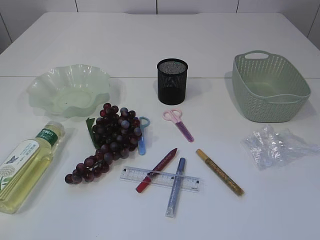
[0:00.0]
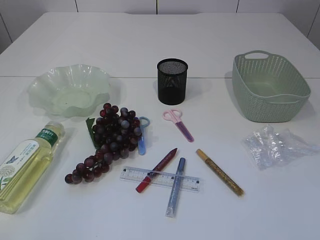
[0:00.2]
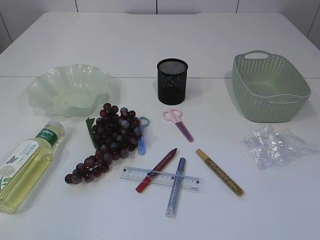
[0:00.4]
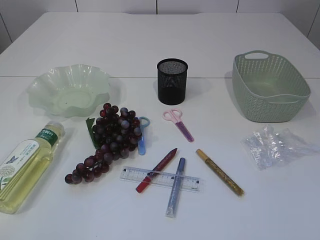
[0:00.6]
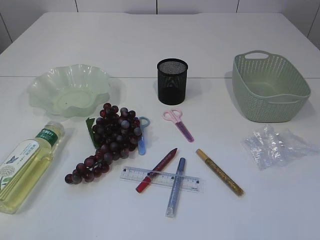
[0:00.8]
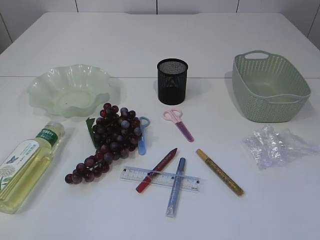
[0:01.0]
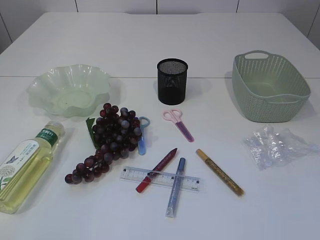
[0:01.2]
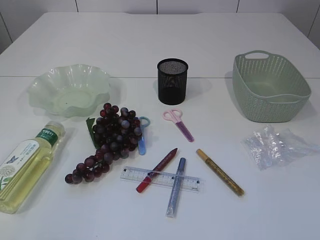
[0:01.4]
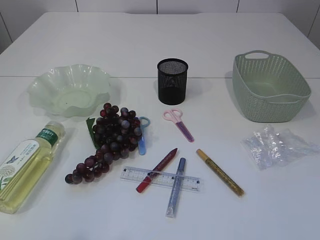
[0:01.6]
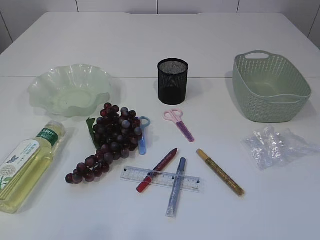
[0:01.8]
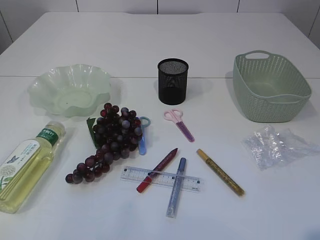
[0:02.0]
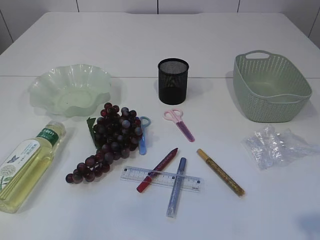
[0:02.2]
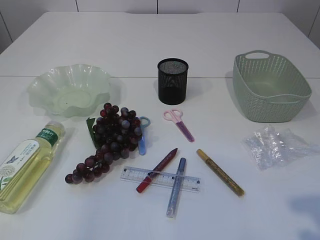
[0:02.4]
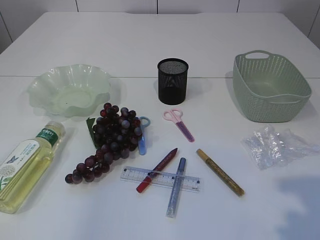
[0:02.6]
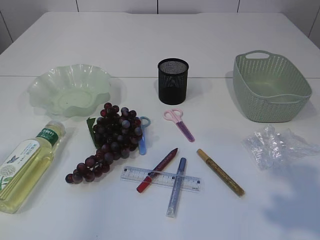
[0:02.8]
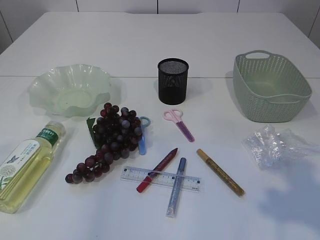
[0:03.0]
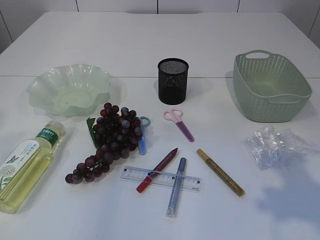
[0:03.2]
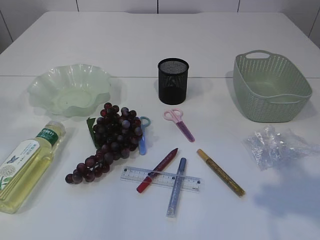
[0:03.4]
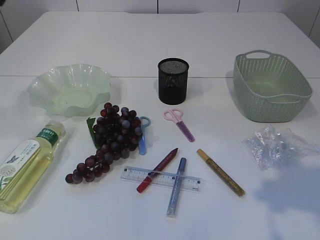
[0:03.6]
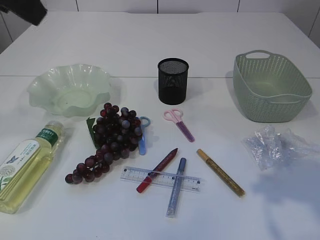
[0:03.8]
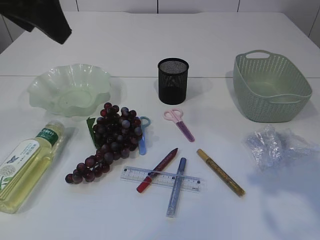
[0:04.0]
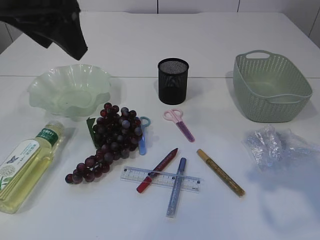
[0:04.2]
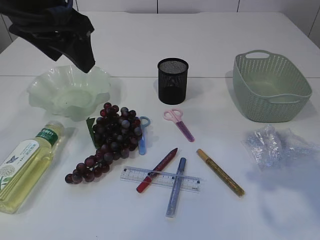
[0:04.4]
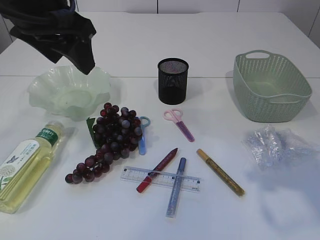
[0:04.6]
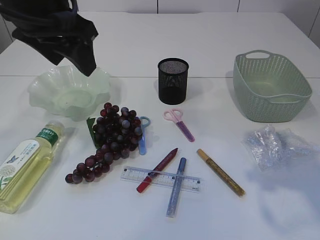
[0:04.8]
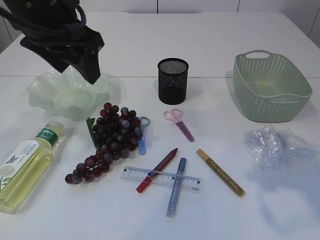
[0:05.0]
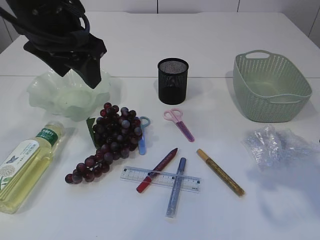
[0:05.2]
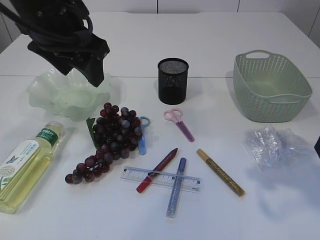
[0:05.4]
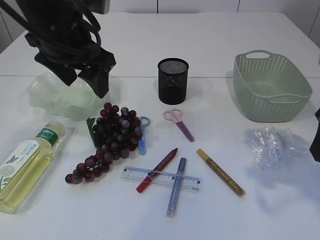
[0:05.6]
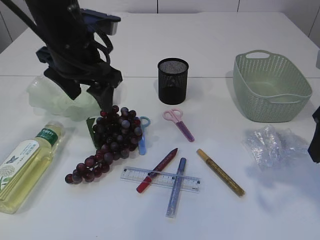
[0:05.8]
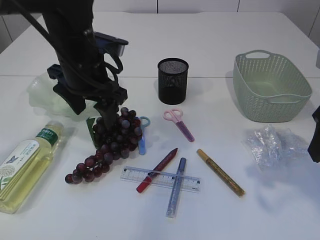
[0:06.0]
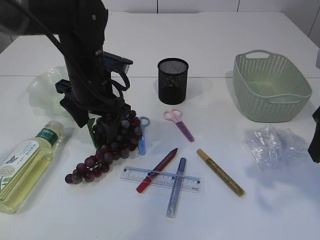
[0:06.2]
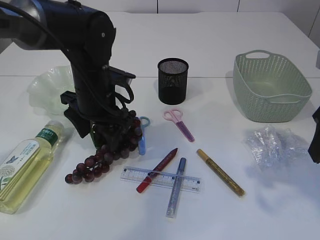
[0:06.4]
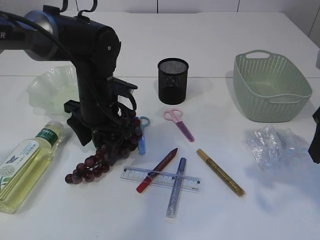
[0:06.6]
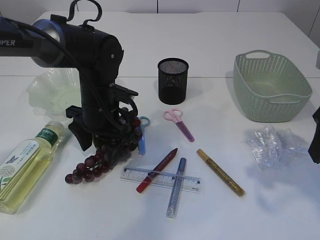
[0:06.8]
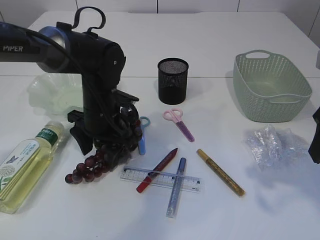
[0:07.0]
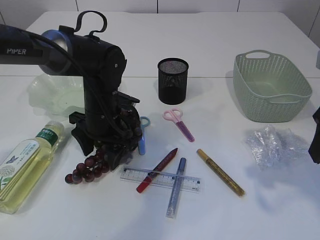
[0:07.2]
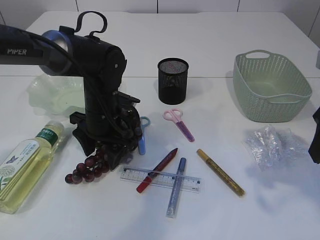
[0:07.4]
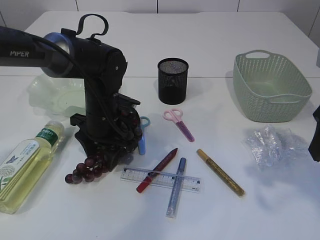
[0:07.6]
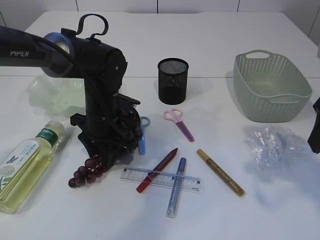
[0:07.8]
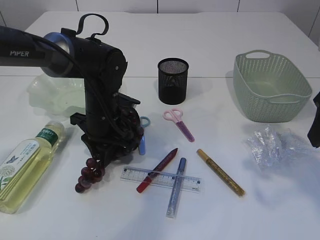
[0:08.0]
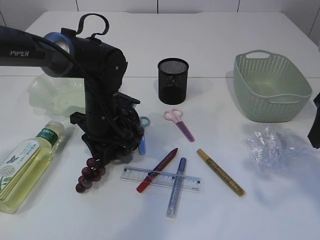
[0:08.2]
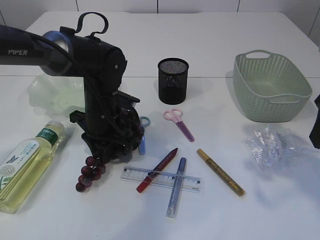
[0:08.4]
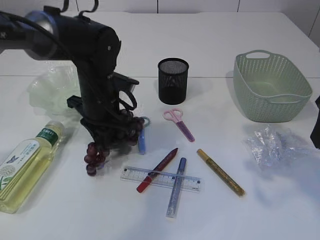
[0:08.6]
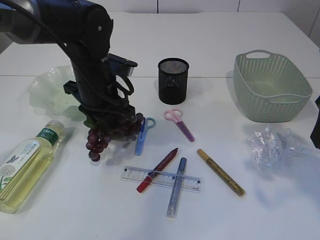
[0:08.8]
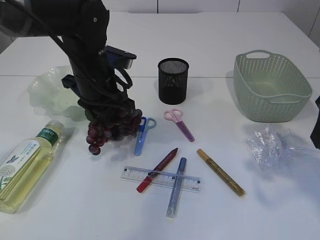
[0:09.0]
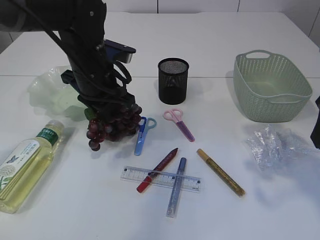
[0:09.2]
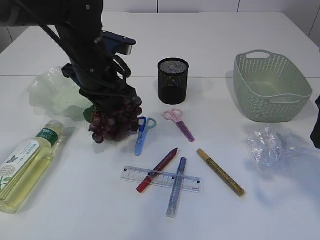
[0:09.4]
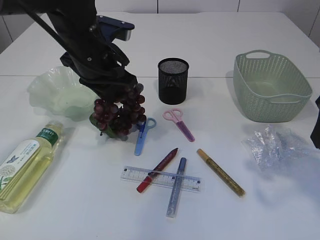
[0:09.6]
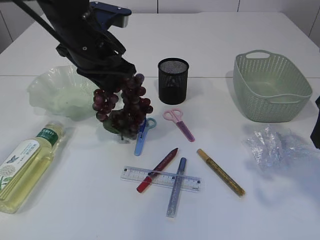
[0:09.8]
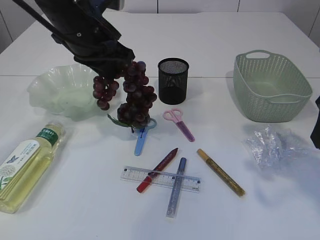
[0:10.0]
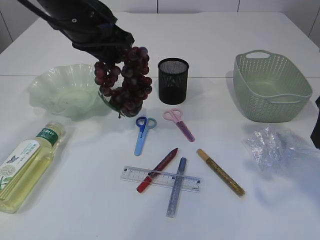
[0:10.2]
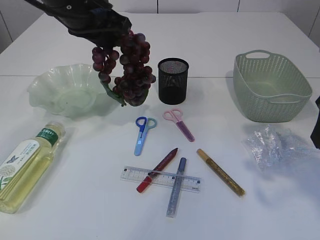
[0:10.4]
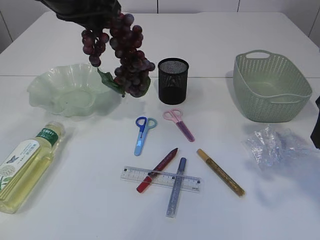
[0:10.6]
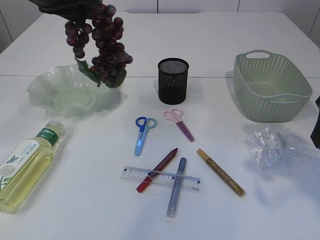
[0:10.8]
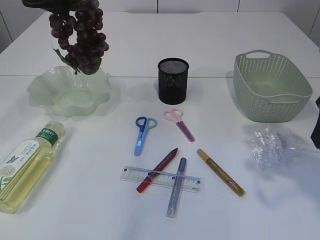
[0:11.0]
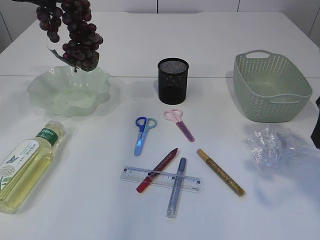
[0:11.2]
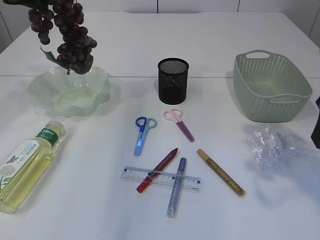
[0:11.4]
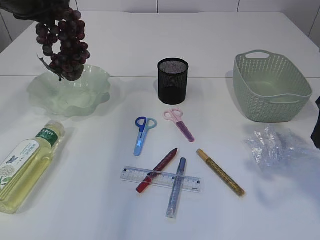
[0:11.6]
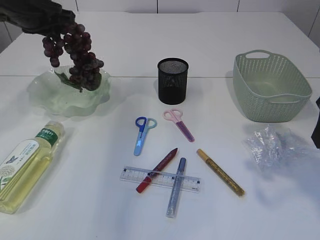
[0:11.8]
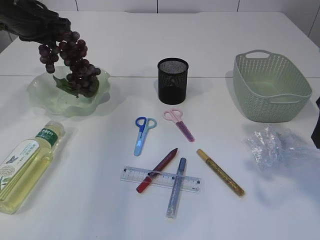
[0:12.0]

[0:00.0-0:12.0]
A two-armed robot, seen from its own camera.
Step, 0:00.0 to 0:10.0: Pick up the grapes.
0:01.6 to 0:03.0: The right gripper travels forward and upward by roughly 15 cm.
0:03.0 to 0:04.4: The right gripper travels forward by about 10 cm. The left gripper heads forward, to the right and downward, covering approximately 20 cm.
0:04.4 to 0:06.0: The left gripper is displaced downward and forward by some 15 cm.
0:06.0 to 0:07.6: The left gripper is displaced downward by some 10 cm.
0:07.6 to 0:09.0: The left gripper travels upward by approximately 10 cm, and closes up.
0:09.0 to 0:10.4: The left gripper travels upward by some 10 cm.
0:10.4 to 0:12.0: The left gripper is displaced to the left and forward by approximately 15 cm.

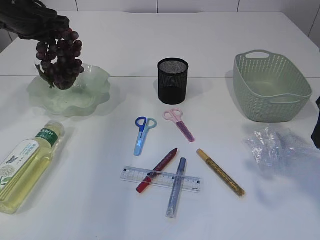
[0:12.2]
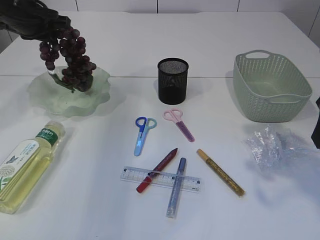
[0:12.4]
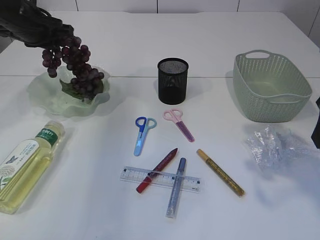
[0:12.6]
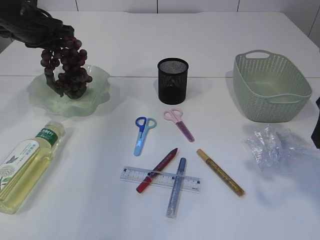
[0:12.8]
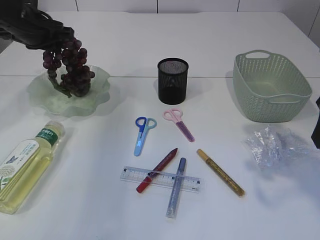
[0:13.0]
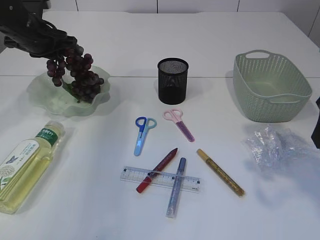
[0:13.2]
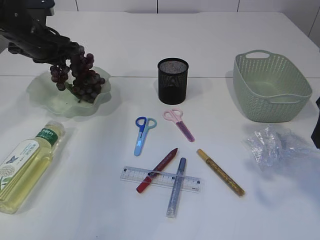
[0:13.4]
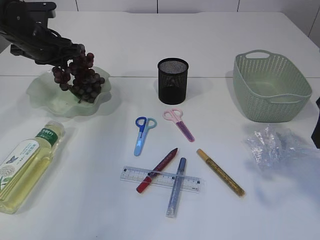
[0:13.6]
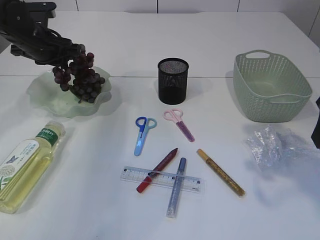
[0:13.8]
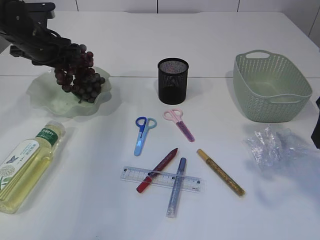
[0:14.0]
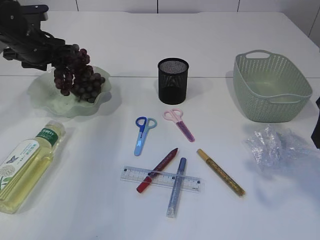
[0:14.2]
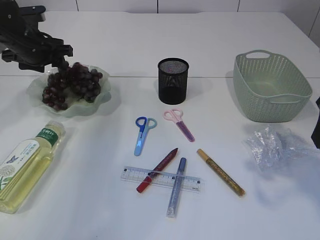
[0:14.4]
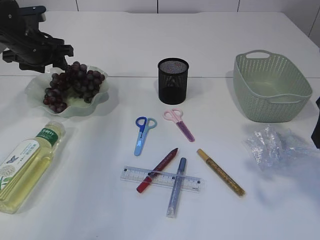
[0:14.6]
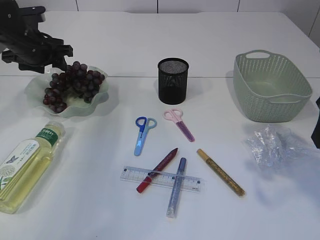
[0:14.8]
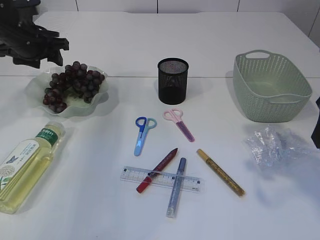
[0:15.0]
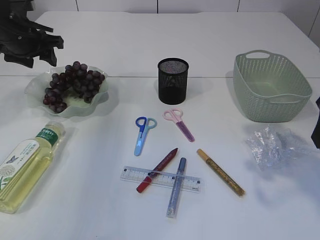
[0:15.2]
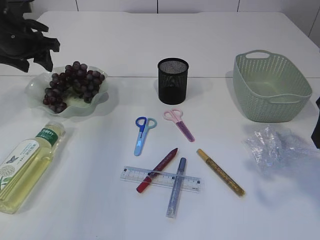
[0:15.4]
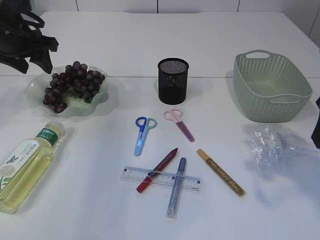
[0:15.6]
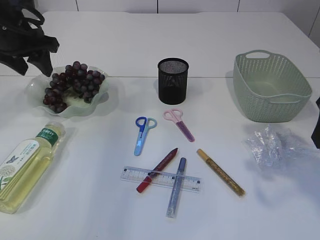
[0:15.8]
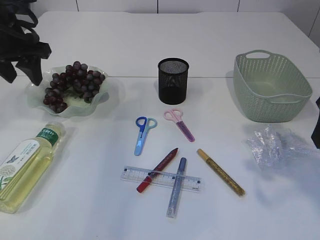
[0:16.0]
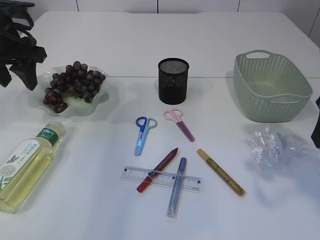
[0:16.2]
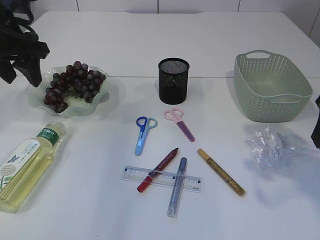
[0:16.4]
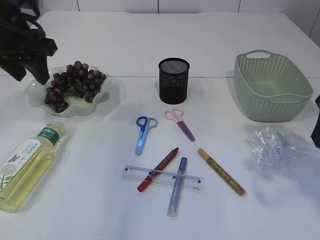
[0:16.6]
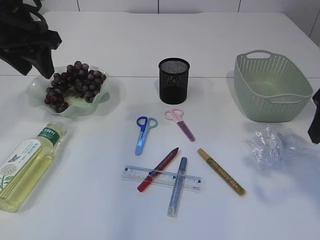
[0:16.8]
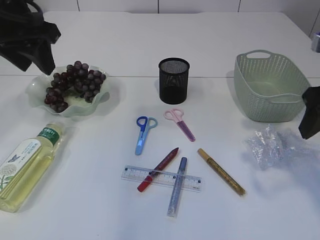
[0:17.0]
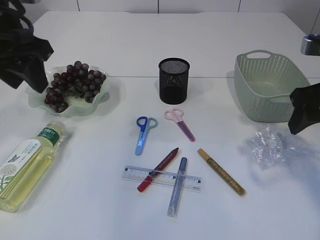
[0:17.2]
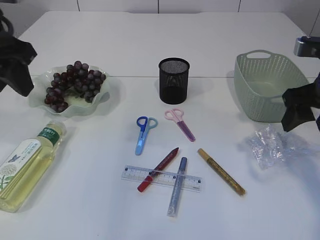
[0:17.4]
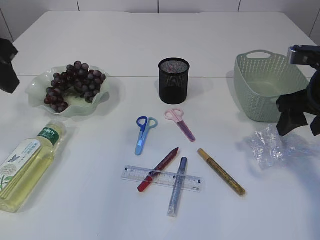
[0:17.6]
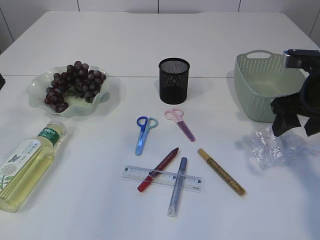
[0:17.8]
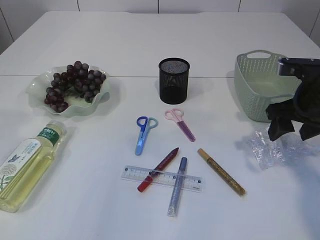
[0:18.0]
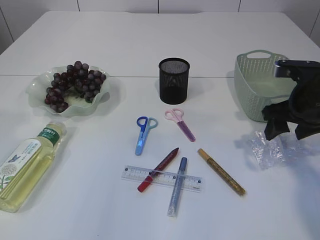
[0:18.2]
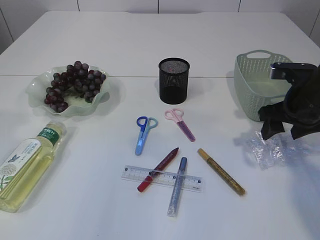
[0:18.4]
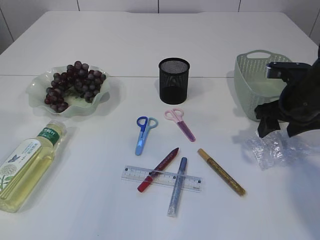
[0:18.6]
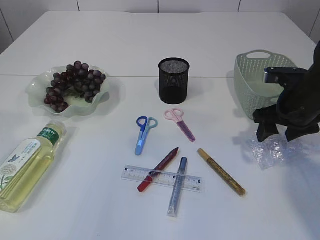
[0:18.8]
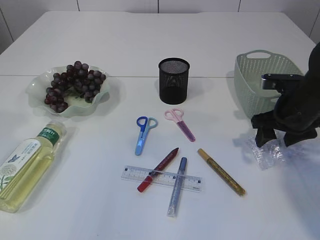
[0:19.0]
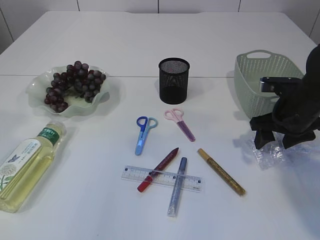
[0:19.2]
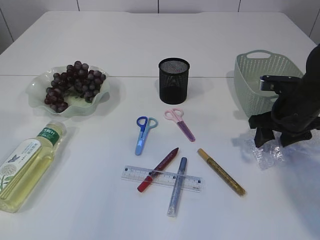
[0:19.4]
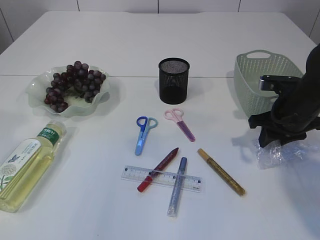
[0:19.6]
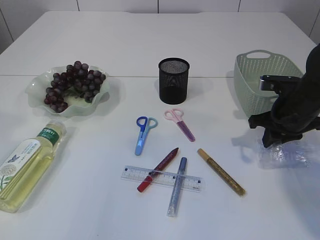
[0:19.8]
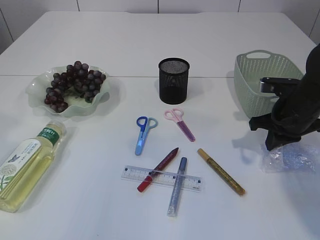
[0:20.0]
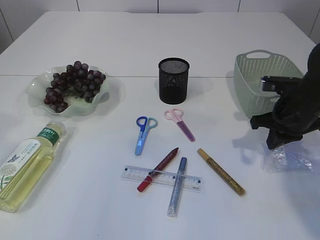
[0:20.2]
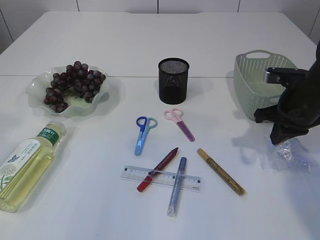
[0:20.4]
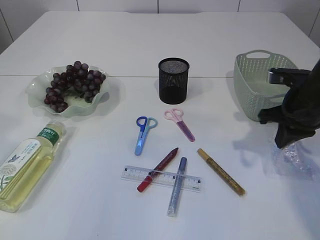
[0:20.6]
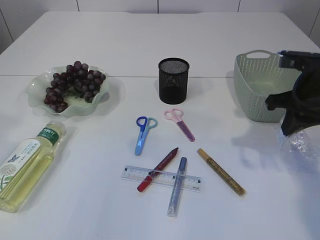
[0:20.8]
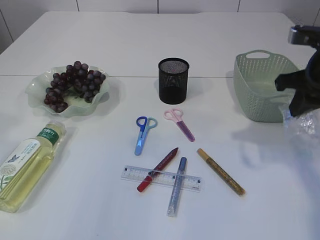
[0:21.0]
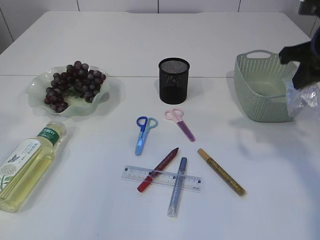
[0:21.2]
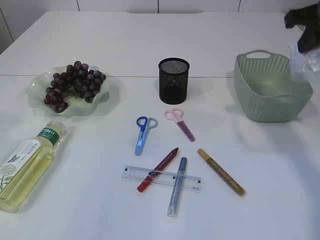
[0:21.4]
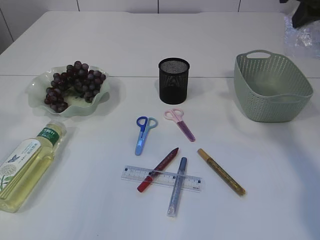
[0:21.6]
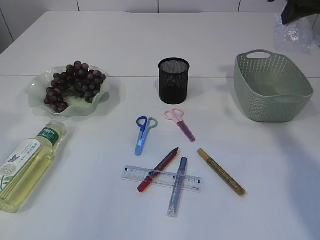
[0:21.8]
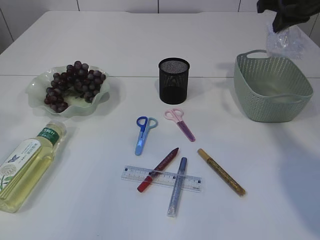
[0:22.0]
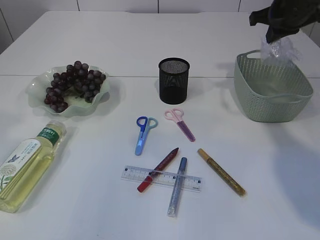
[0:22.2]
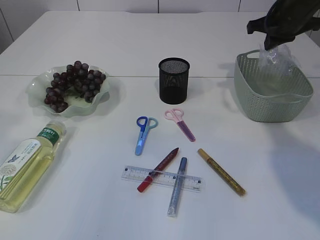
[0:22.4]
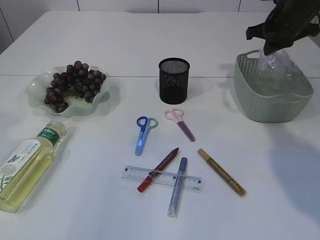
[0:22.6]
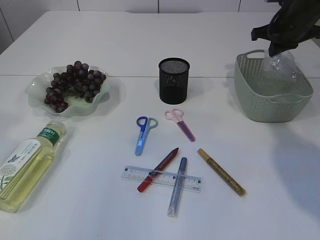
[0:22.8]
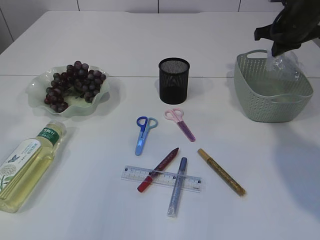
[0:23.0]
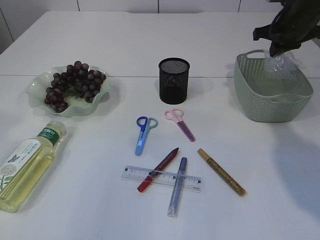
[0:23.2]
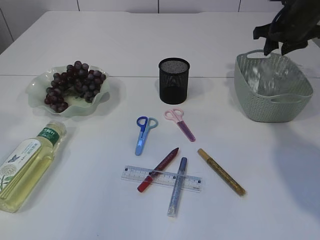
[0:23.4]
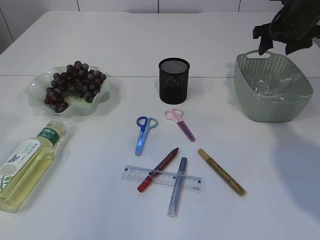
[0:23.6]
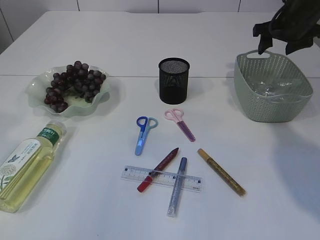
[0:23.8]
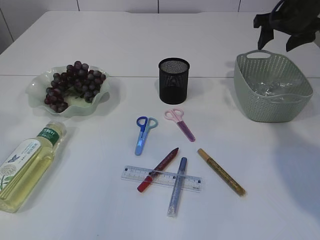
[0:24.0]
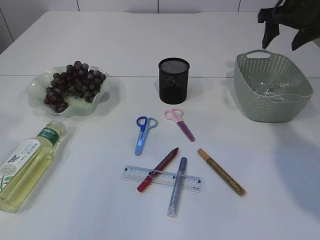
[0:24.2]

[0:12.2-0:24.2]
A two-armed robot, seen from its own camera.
Step, 0:12.2 to 0:14.8: Place the grapes in the plate.
Step, 0:15.0 to 0:20.8: Pick up the plastic.
Step, 0:21.0 to 0:24.0: Place the plastic in the basket.
0:12.2 to 0:13.8: The left gripper travels downward by some 5 cm.
0:13.8 to 0:15.2: The left gripper opens its fingers.
0:15.2 to 0:16.6: The left gripper travels backward and upward by roughly 10 cm.
0:16.6 to 0:18.2: The left gripper shifts approximately 15 cm backward and upward. The right gripper heads downward and forward, covering some 15 cm.
0:18.2 to 0:19.8: The right gripper ends up about 5 cm from where it was, and closes.
0:19.8 to 0:21.2: The right gripper shifts some 15 cm upward.
0:21.2 to 0:22.6: The right gripper is displaced forward by approximately 15 cm.
0:22.6 to 0:24.2: The right gripper opens.
